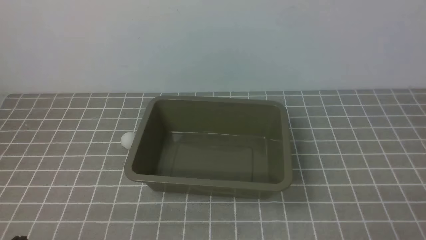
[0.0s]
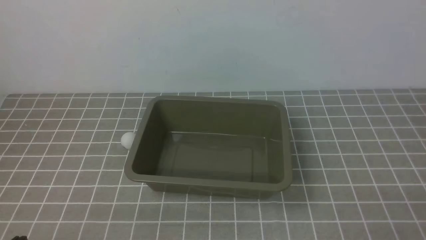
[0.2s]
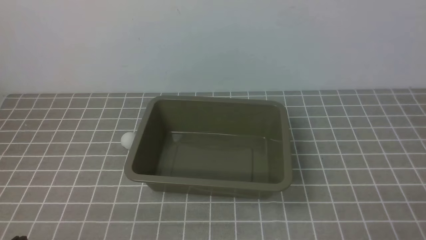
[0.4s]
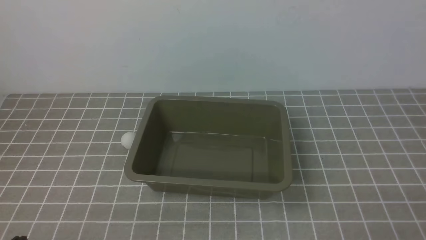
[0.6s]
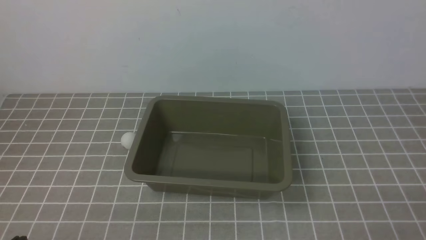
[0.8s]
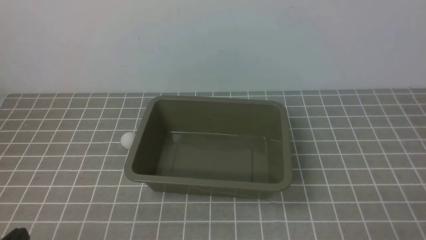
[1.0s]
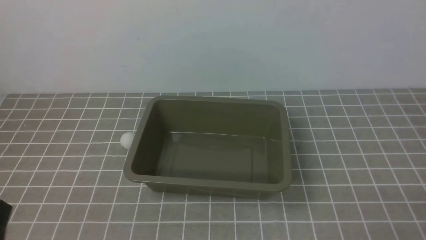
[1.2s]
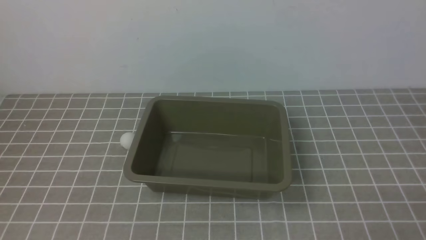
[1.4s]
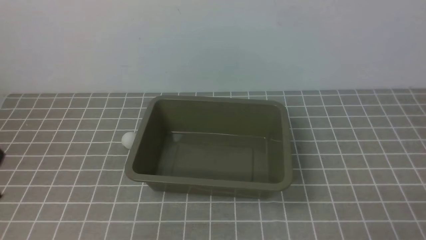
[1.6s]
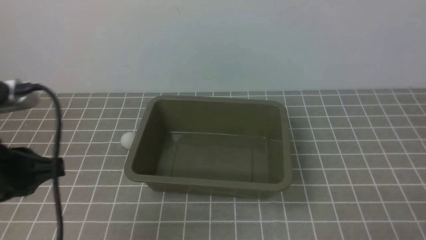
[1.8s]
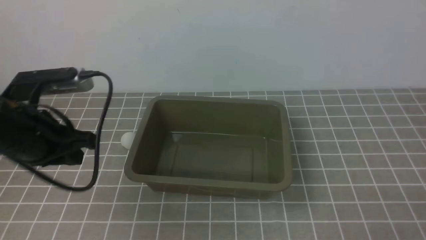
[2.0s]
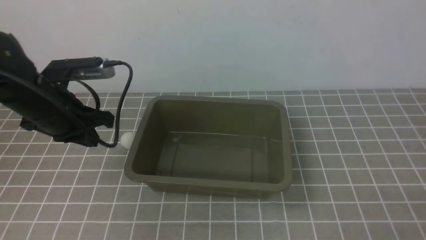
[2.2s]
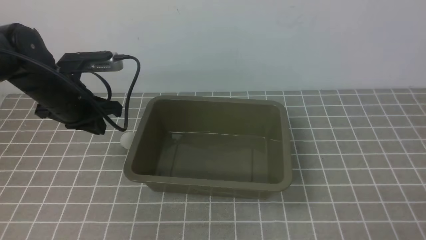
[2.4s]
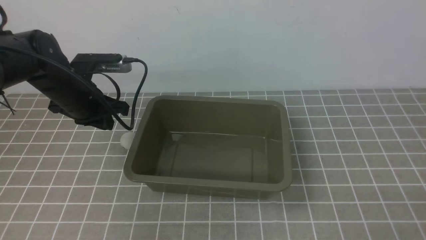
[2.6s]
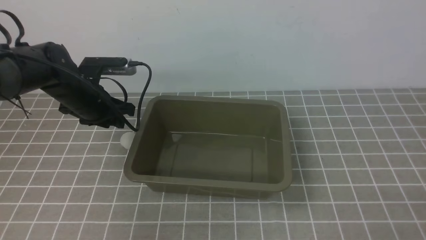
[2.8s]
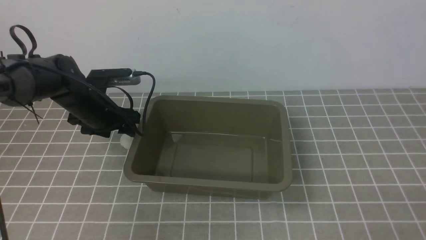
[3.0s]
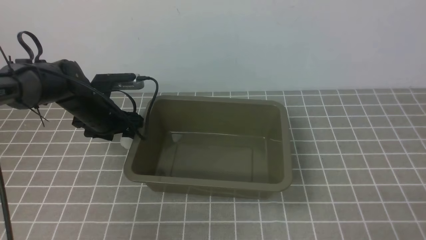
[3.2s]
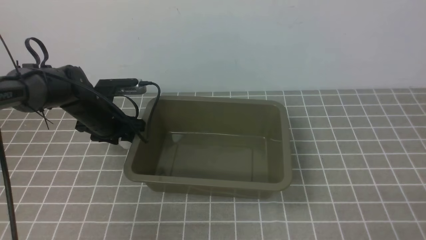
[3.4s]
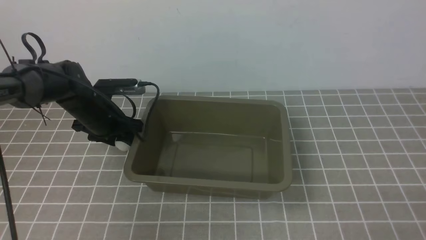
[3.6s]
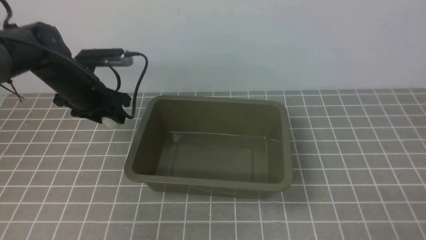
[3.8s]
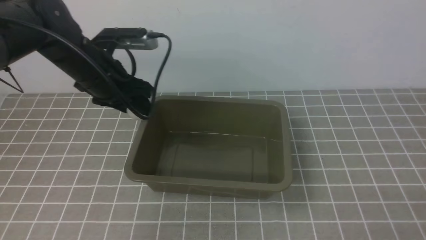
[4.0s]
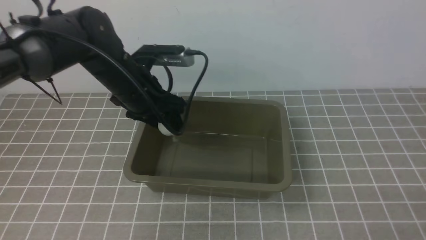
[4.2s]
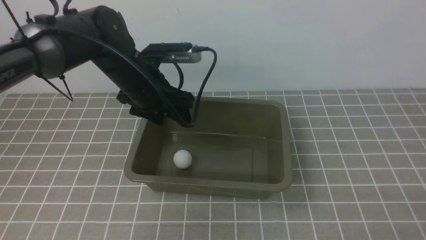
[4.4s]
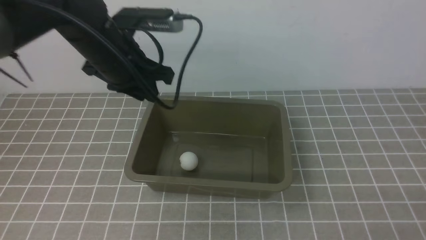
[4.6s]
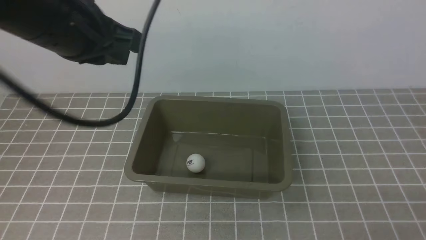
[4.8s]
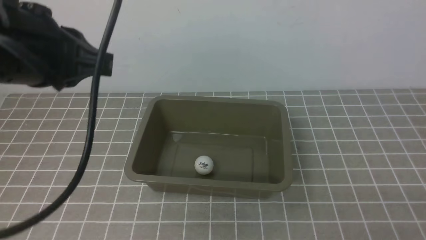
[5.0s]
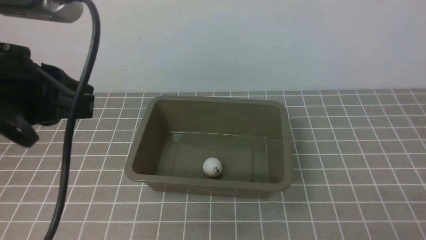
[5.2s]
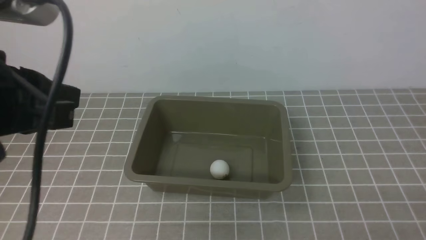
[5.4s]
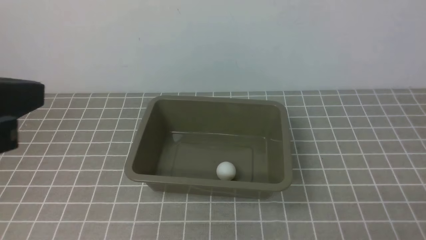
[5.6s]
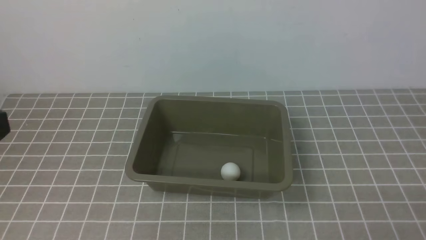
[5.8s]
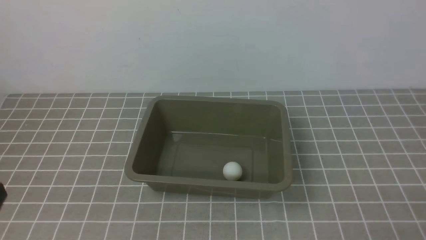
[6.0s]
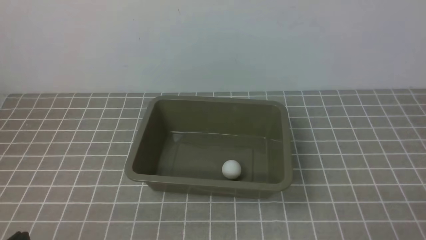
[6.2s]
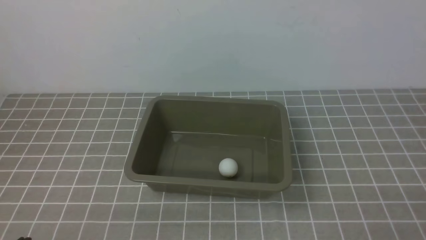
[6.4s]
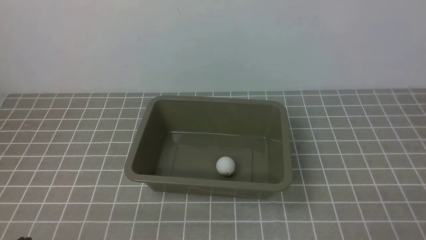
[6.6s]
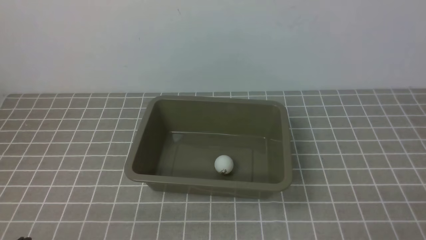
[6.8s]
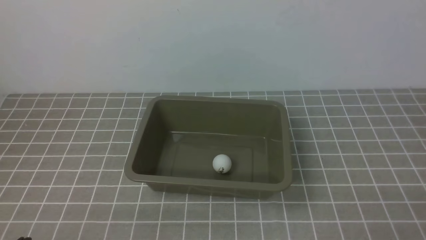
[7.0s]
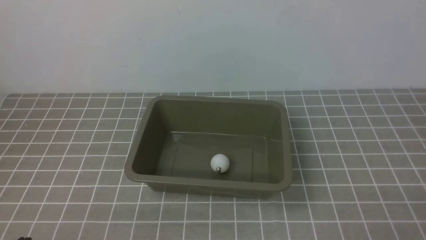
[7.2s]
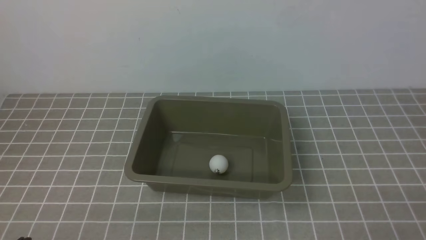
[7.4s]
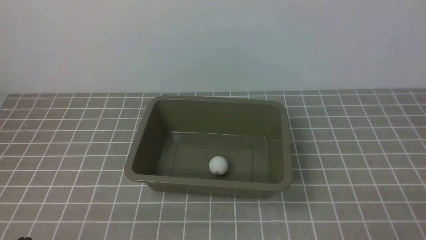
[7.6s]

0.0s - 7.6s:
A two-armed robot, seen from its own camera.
Step, 0.0s - 3.8s: use the left arm to clamp the table tennis ball closest to it.
Step, 4.0s - 4.4s: use the left arm to put the table tennis ball into the box.
1.6s - 3.0s: The left gripper is displaced forward by approximately 35 cm, and opens up.
3.0s - 4.6s: The left gripper goes roughly 15 cm upward, to the right and backward.
4.6s - 6.0s: The left gripper is displaced backward by approximately 30 cm, and closes.
6.0s - 7.6s: The left gripper heads downward, covering some 15 cm.

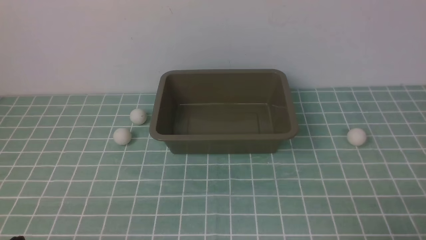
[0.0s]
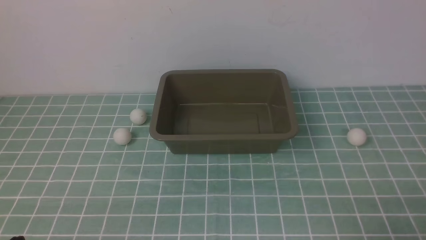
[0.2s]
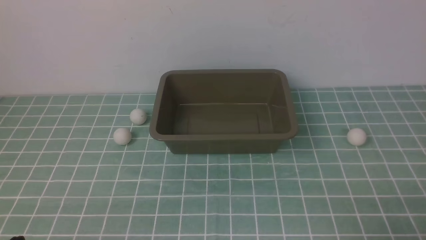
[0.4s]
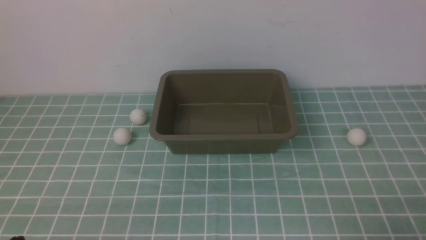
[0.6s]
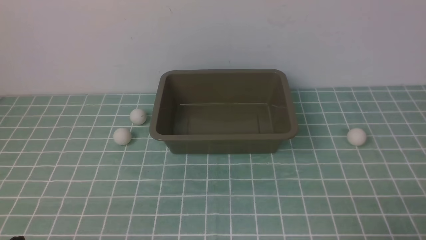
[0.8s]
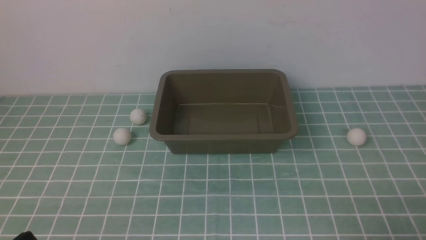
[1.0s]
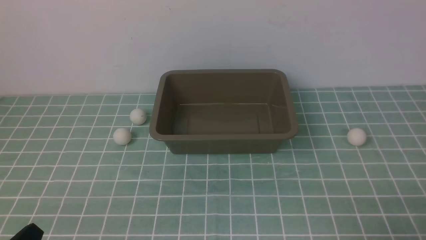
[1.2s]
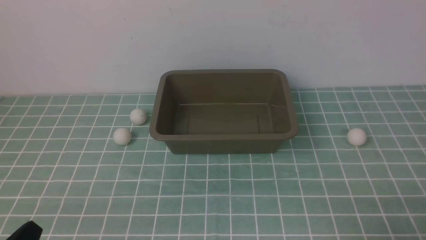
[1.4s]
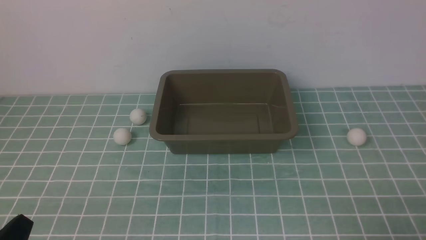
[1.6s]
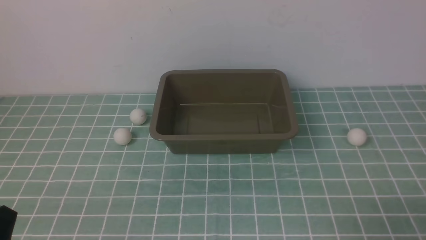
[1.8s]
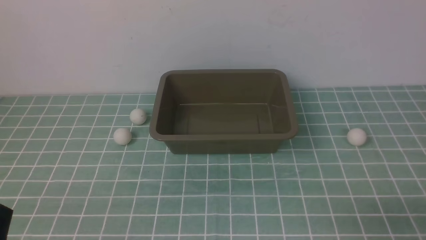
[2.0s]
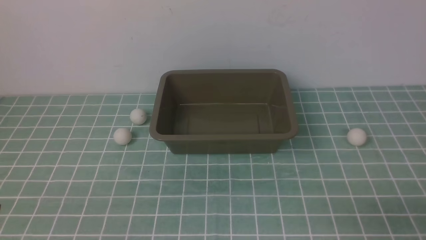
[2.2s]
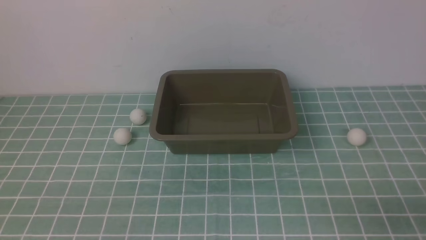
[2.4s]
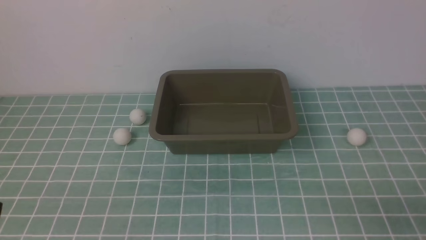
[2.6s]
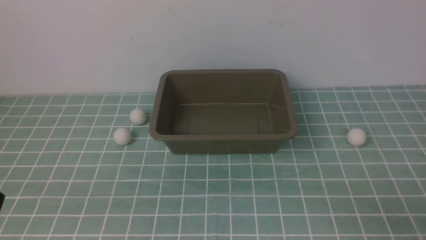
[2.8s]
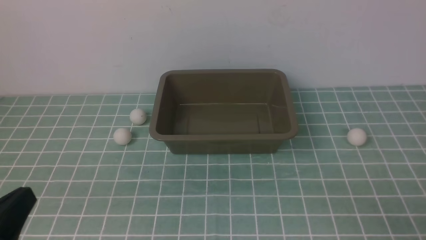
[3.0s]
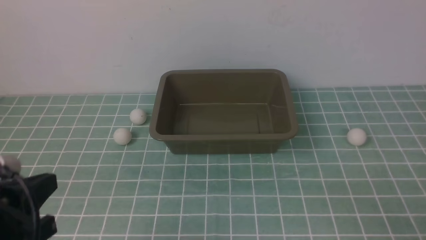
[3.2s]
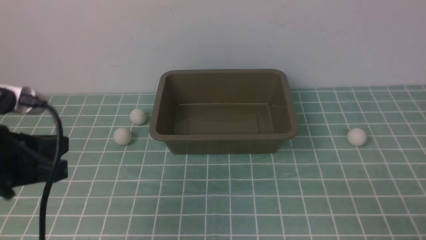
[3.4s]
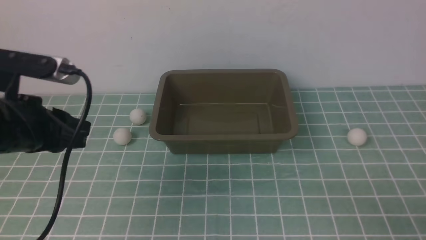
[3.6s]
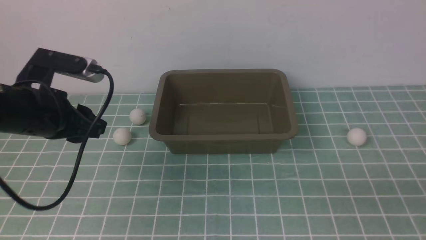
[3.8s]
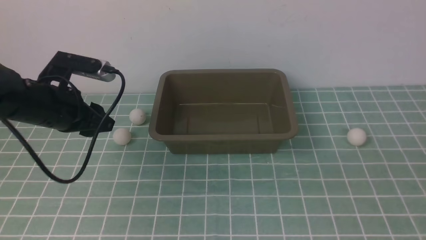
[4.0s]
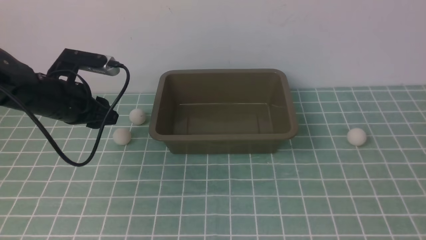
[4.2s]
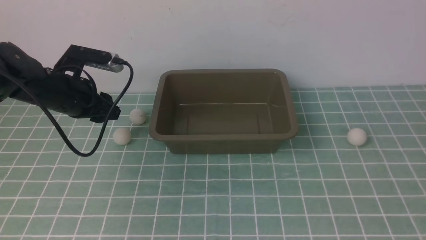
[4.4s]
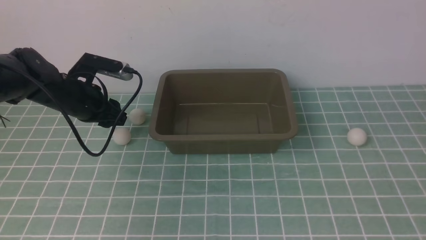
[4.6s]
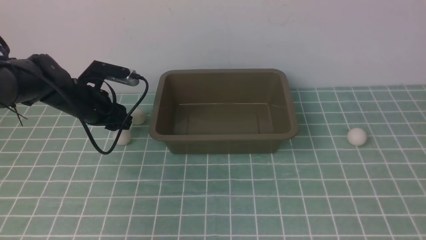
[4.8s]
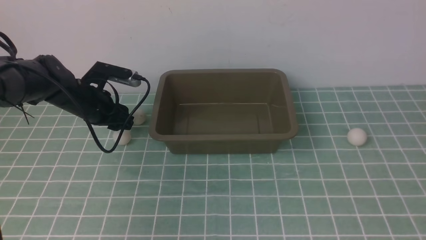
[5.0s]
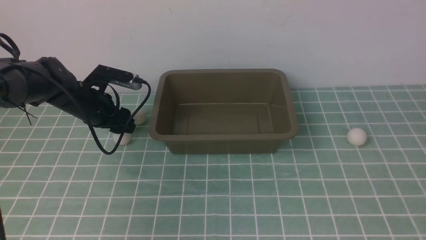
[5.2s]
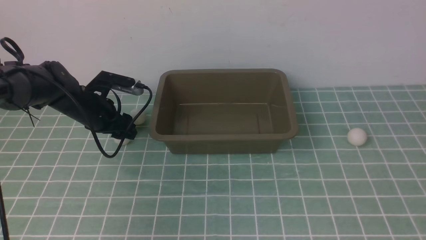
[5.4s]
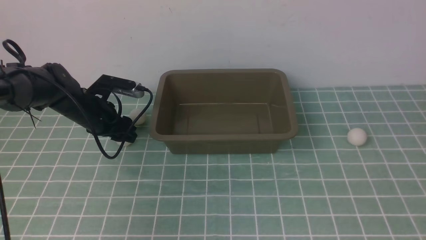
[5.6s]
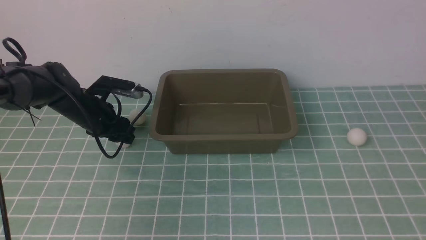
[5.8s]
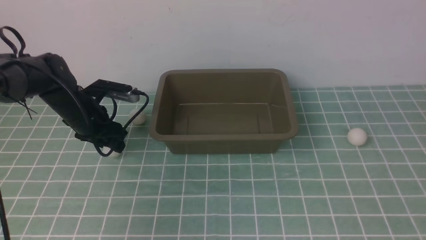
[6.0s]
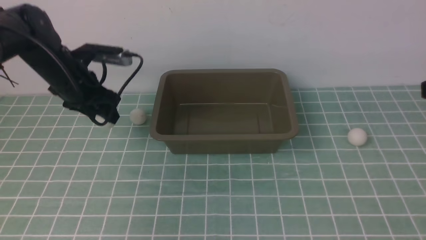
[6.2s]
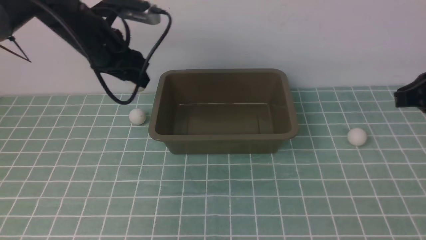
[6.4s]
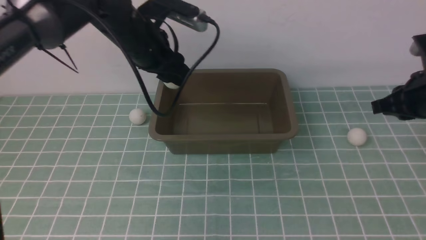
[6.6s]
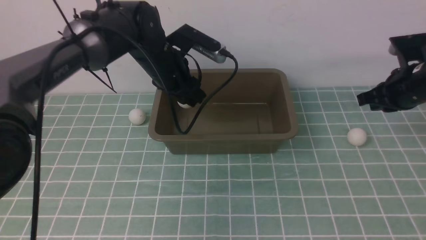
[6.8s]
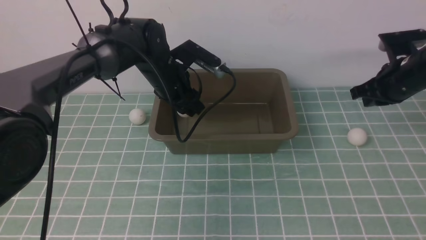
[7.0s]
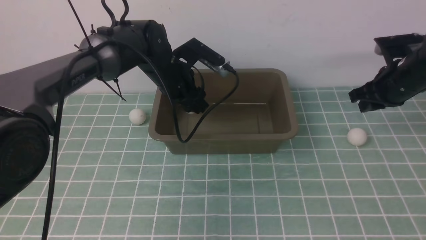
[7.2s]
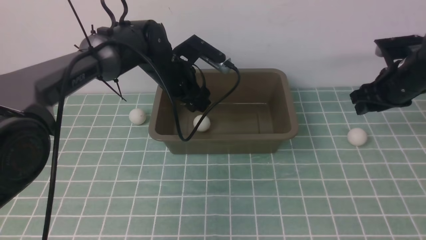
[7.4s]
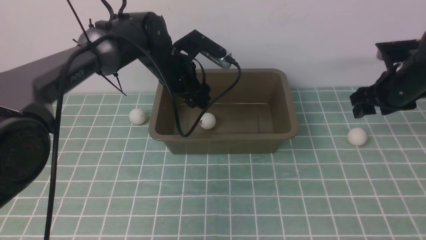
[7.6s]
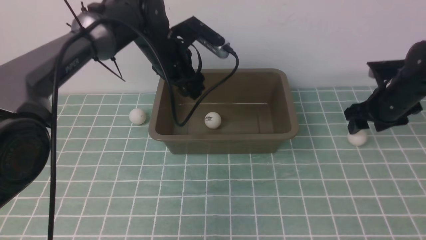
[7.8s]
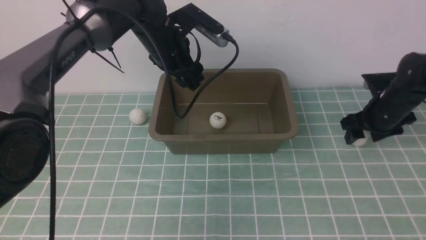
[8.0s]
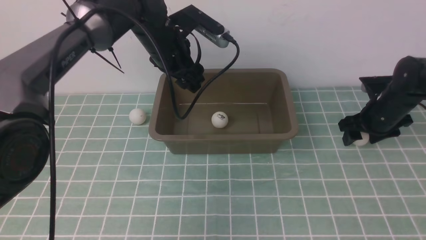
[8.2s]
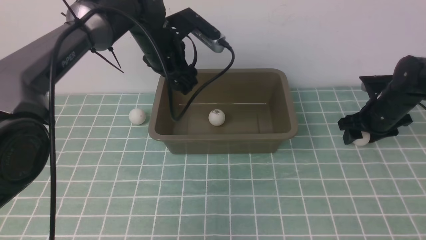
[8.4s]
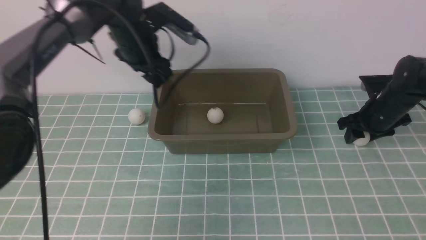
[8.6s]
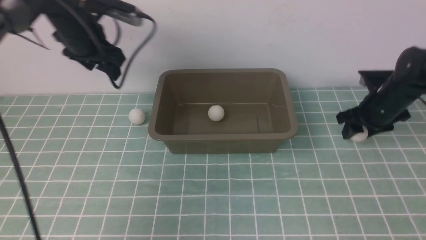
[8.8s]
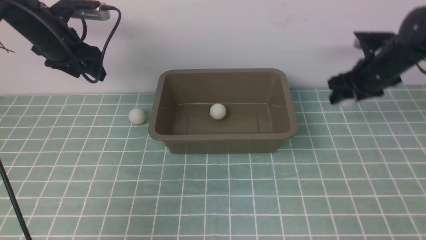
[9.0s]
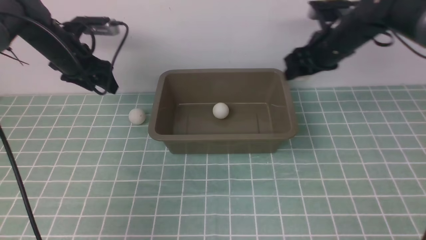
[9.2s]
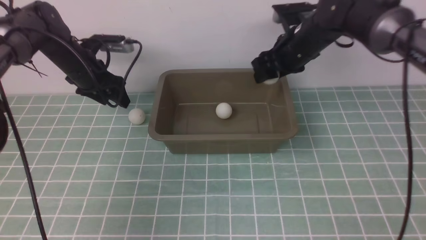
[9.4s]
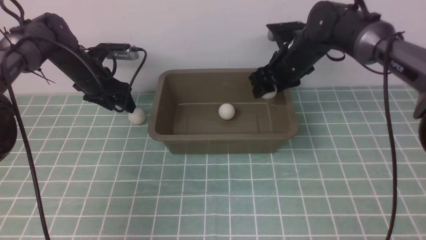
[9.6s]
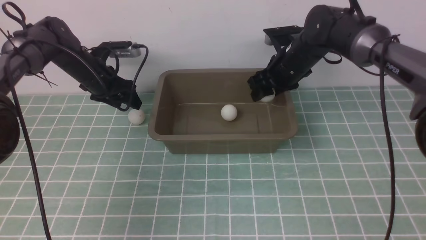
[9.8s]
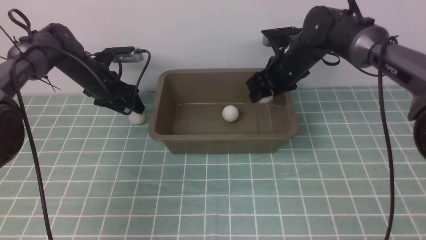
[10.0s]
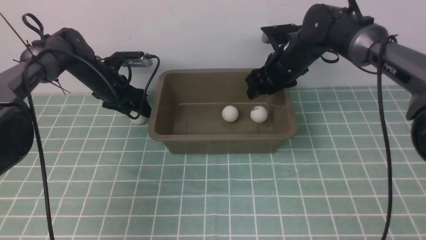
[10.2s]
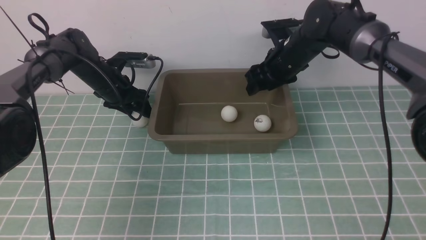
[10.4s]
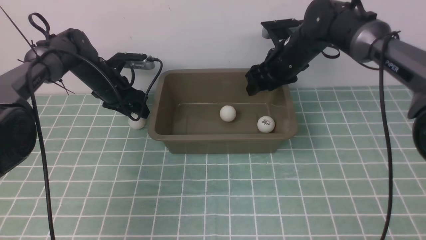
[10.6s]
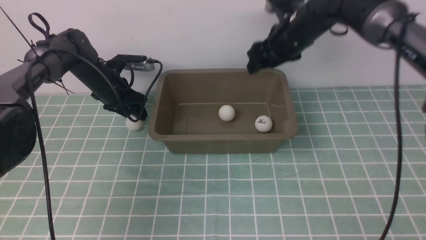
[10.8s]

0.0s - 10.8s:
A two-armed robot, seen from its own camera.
Step, 0.0s - 6.2s: use the left arm to clamp the table tennis ball closest to it.
Step, 6.4s - 7.4s: use the left arm to put the table tennis ball into the box.
Step, 7.6s - 9.0s: use the right arm to clamp the table tennis ball closest to it.
Step, 9.2s - 10.4s: use the right arm to put the table tennis ball into the box.
1.6s - 3.0s: The left gripper shifts roughly 10 cm upward.
3.0s - 4.6s: The left gripper travels forward by roughly 35 cm, and opens; the right gripper moves upward and forward, approximately 20 cm.
4.6s - 6.2s: The left gripper moves to the right and upward, roughly 15 cm.
6.2s - 7.8s: The right gripper shifts some 10 cm downward and forward, and opens up.
7.8s - 9.2s: The left gripper goes about 20 cm to the left. The right gripper travels upward and to the left by some 15 cm.
9.2s - 10.8s: The right gripper moves to the left and upward, approximately 10 cm, while the left gripper goes about 10 cm downward.
